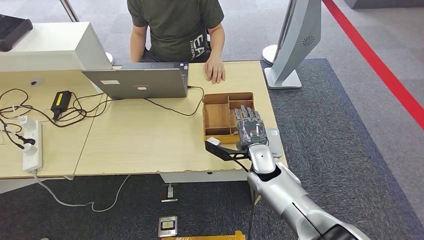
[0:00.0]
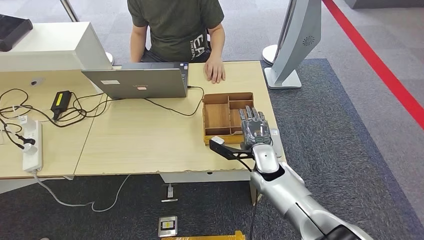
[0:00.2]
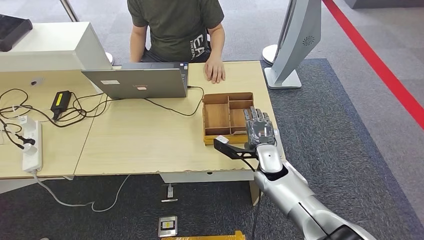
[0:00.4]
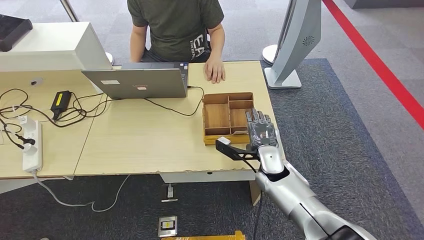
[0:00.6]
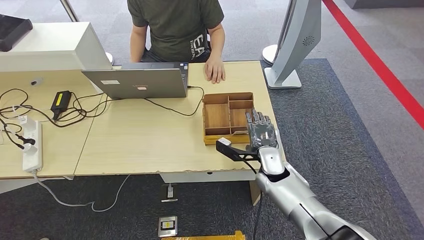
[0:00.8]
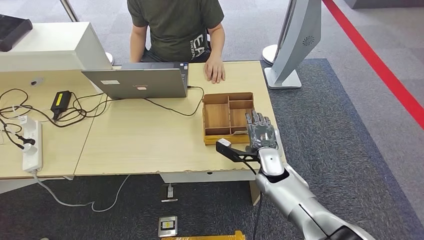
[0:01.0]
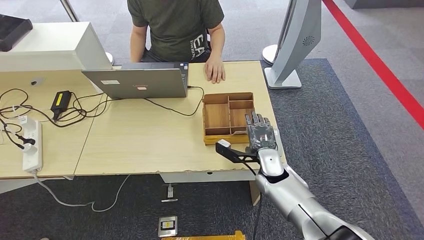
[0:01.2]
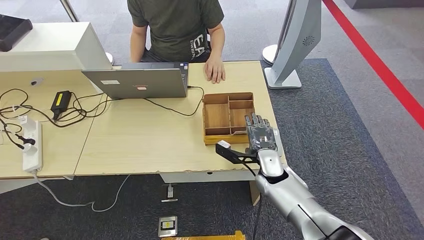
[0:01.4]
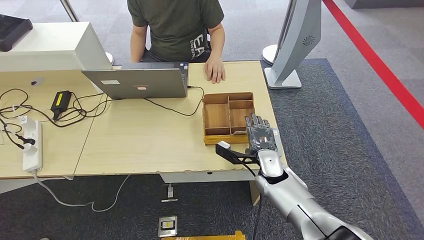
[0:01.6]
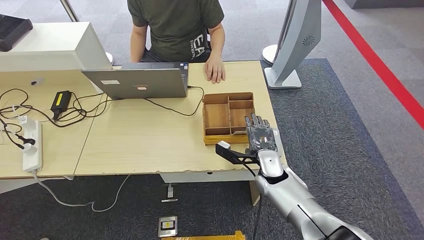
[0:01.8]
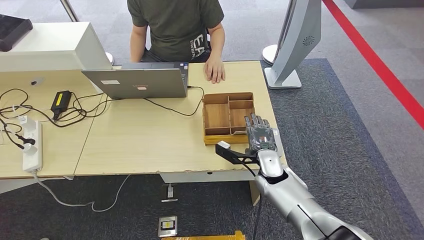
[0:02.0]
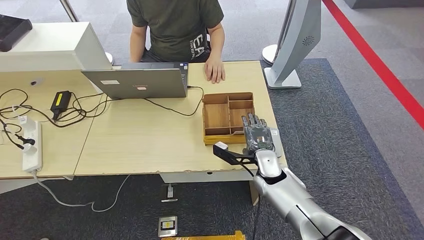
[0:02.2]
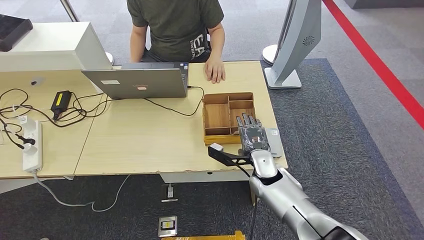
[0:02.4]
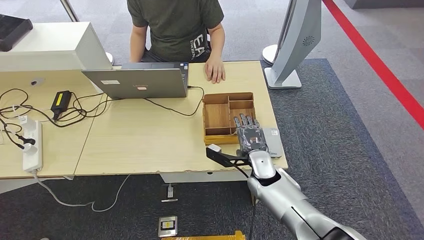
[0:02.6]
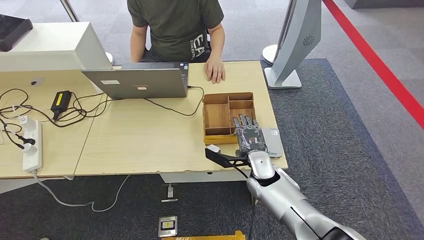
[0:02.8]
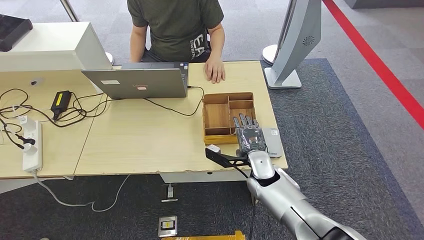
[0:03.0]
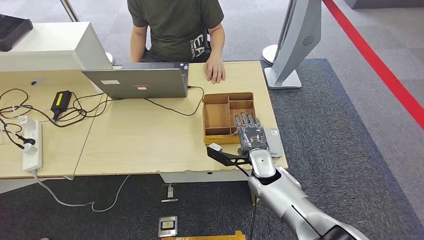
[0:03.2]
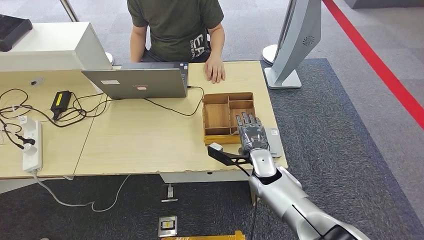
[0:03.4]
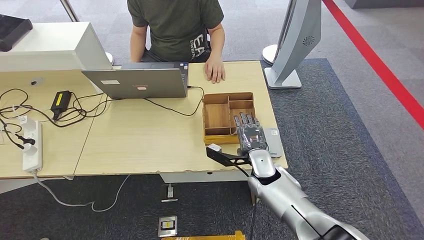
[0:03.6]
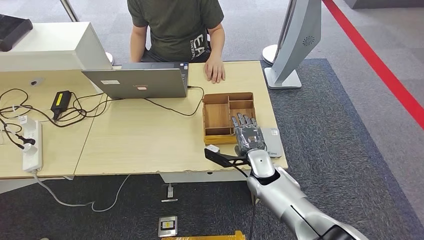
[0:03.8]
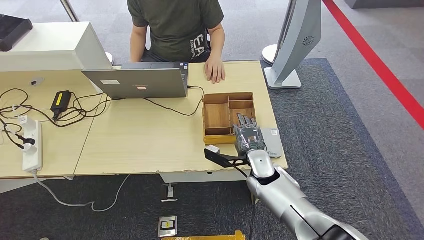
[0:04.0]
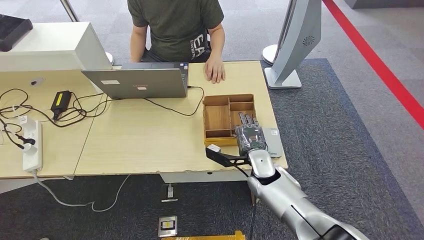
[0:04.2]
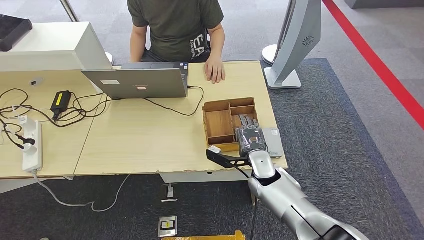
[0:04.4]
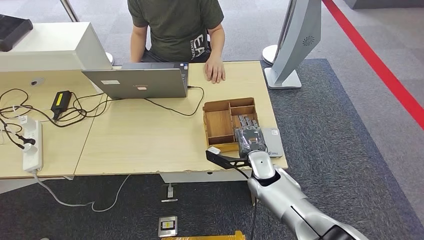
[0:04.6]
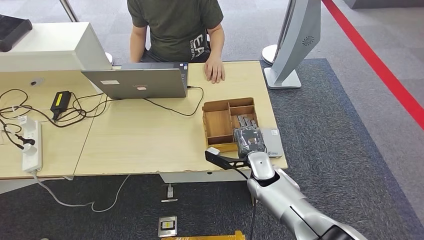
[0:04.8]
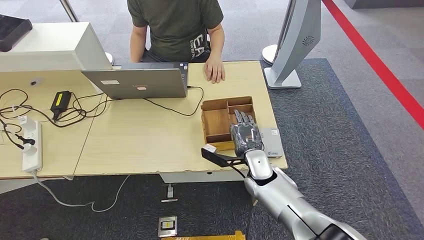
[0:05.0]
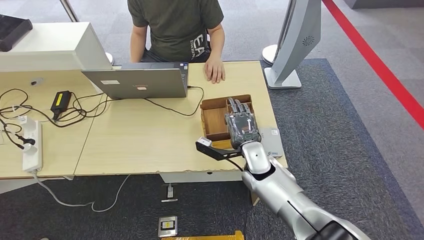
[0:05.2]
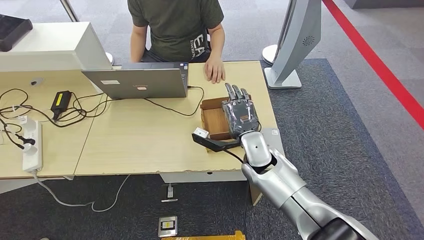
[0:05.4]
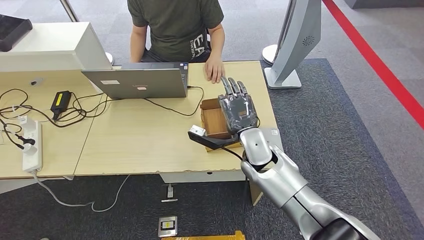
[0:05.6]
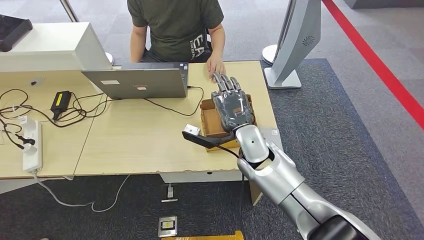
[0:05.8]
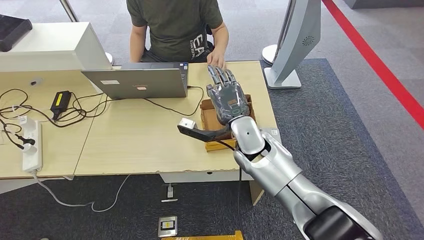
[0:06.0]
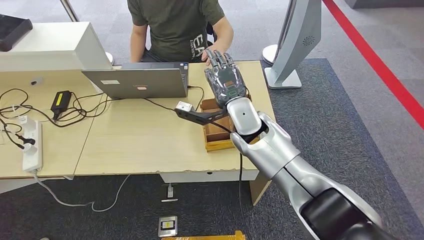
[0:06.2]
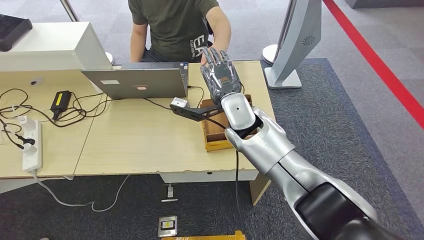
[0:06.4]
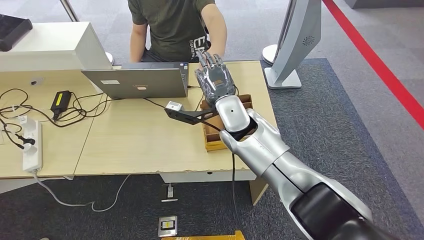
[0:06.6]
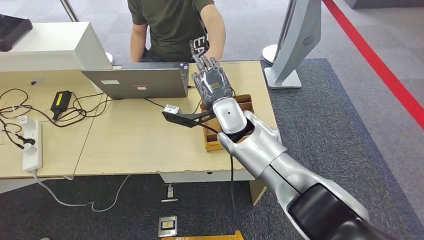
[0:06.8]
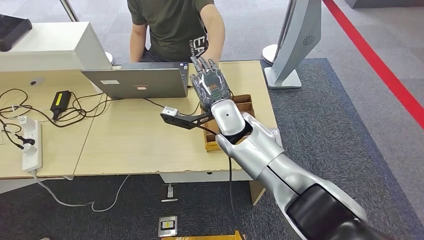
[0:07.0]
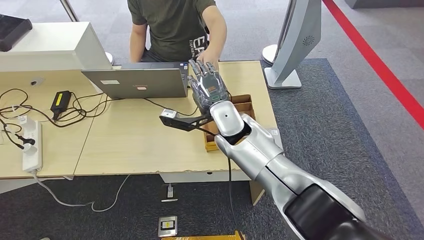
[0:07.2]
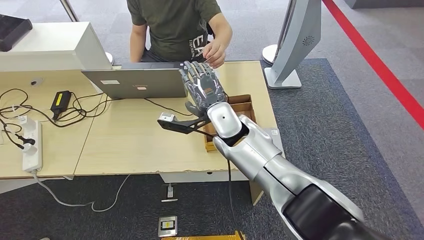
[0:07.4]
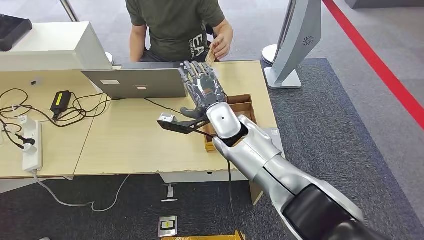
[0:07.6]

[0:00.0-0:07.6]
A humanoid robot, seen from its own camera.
Step, 0.0 to 5.0 s: Pick up the room key from the key card box.
Step, 5.2 to 7.4 s: Hand the room key to the person.
0.0 to 3.0 s: There are only small adjustments of the hands.
3.0 to 4.6 s: Both hands stay put.
4.6 to 6.0 s: The right hand shifts some 15 cm upward and to the left.
6.0 to 7.6 s: The right hand heads to the left, covering roughly 5 cm.

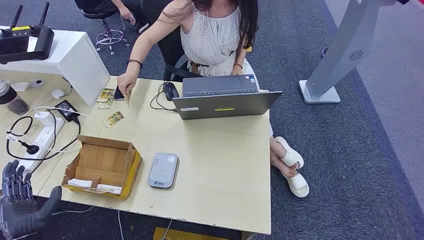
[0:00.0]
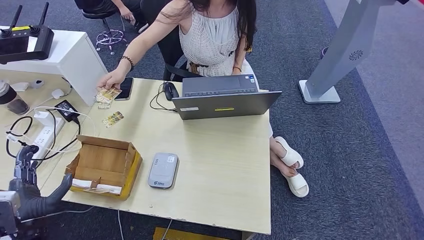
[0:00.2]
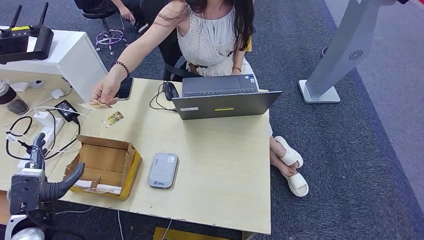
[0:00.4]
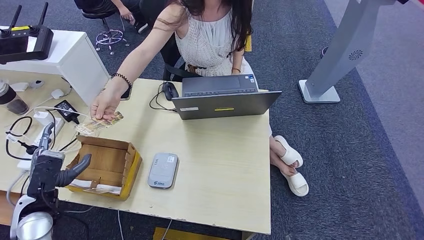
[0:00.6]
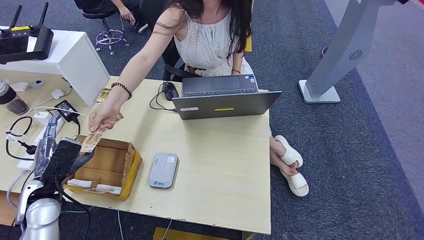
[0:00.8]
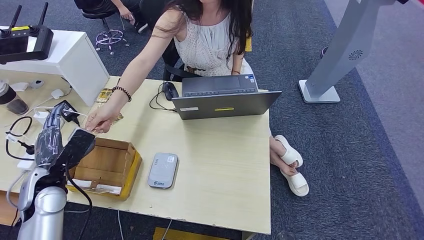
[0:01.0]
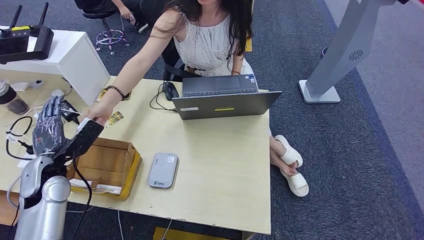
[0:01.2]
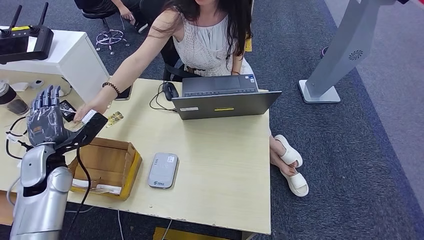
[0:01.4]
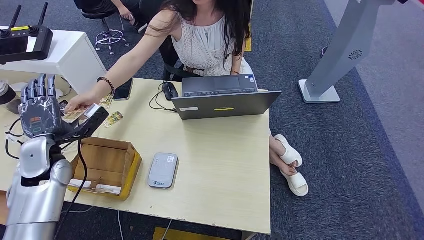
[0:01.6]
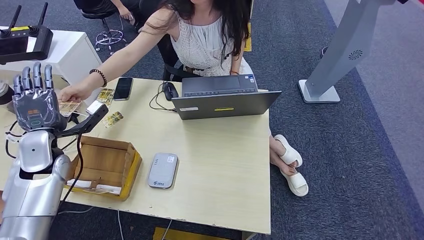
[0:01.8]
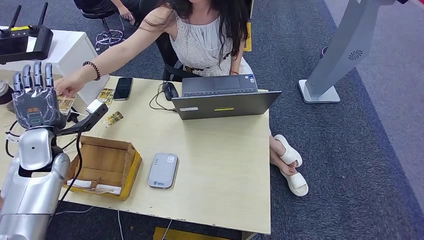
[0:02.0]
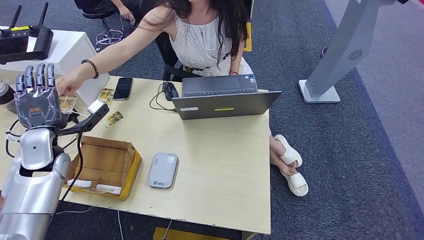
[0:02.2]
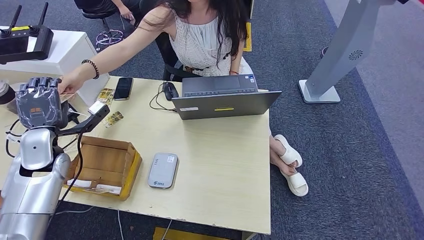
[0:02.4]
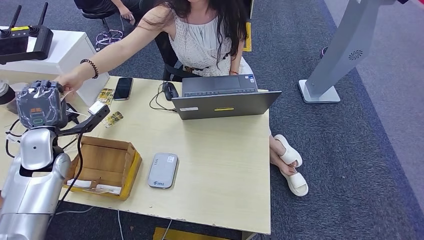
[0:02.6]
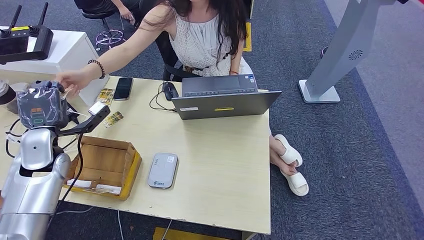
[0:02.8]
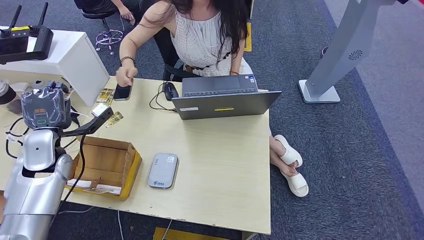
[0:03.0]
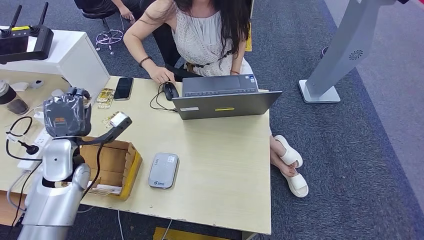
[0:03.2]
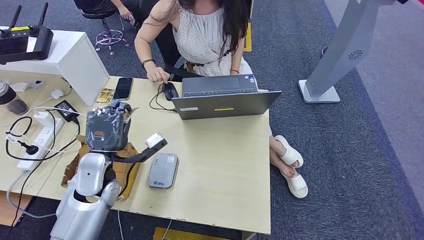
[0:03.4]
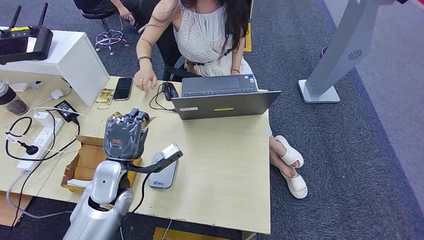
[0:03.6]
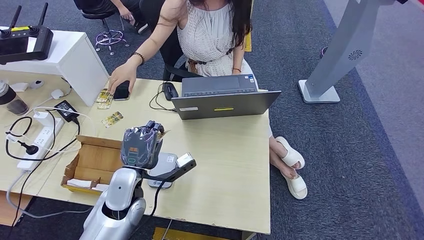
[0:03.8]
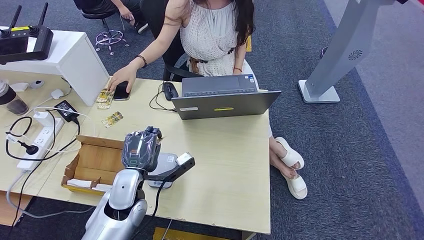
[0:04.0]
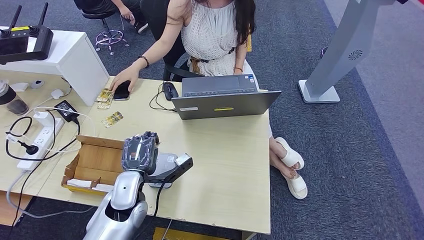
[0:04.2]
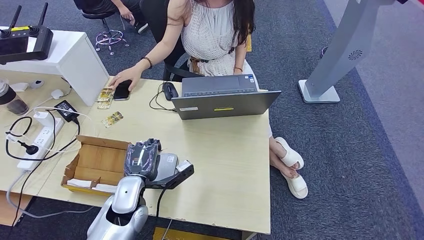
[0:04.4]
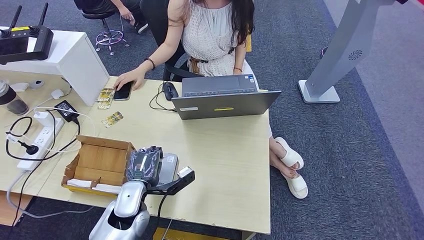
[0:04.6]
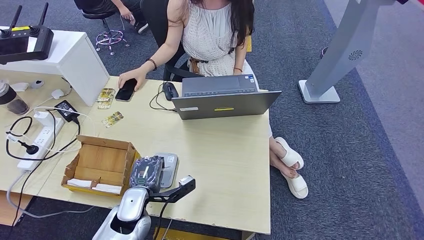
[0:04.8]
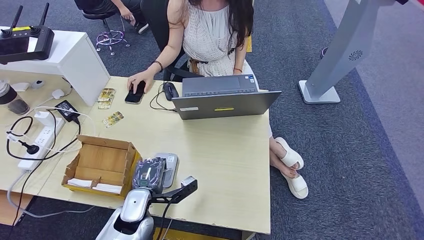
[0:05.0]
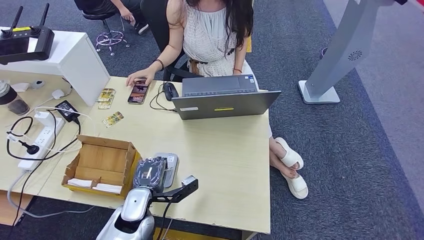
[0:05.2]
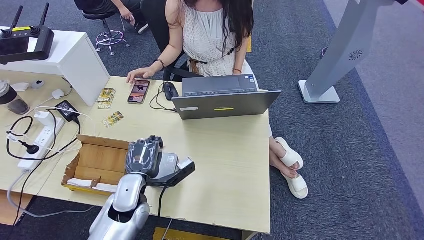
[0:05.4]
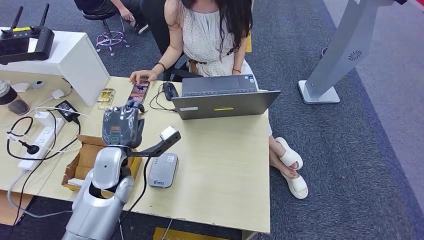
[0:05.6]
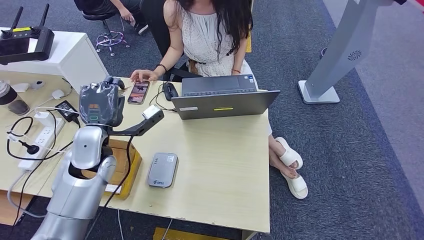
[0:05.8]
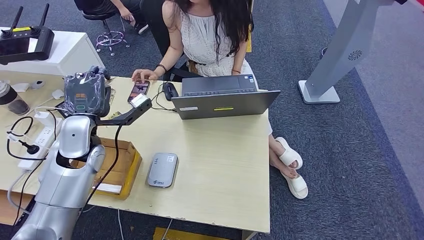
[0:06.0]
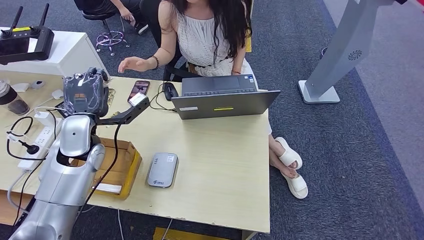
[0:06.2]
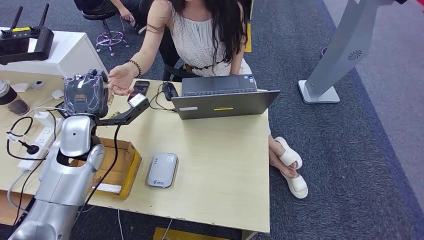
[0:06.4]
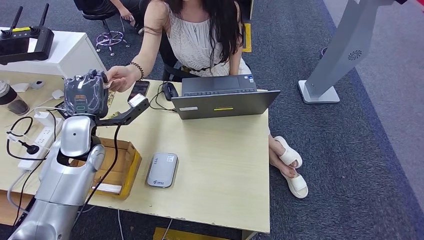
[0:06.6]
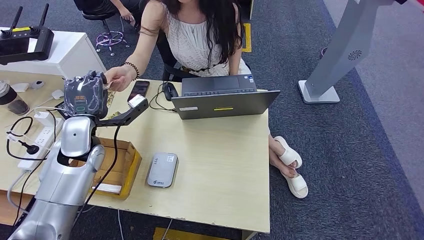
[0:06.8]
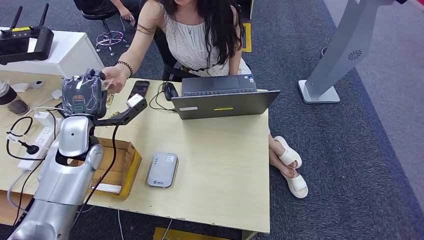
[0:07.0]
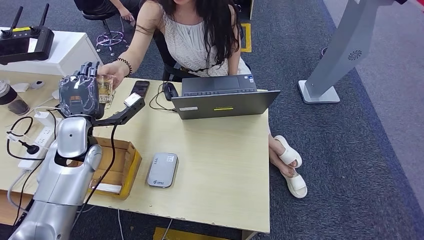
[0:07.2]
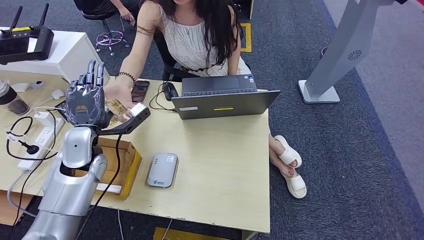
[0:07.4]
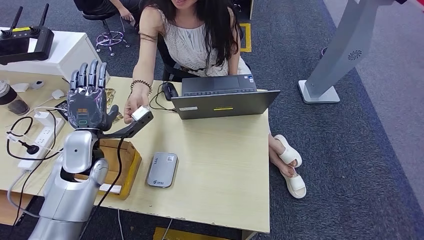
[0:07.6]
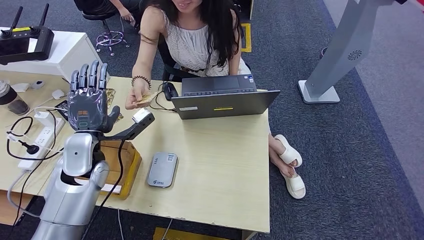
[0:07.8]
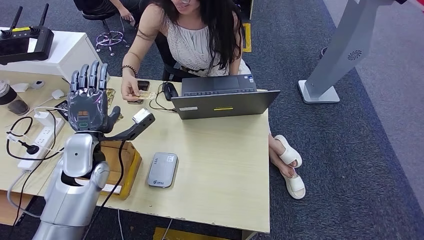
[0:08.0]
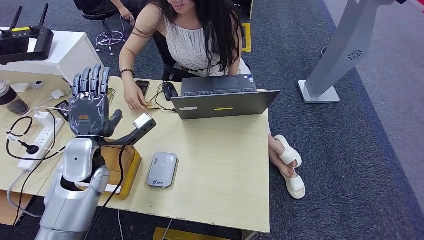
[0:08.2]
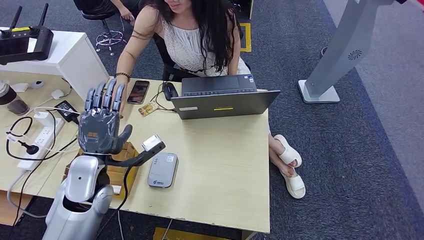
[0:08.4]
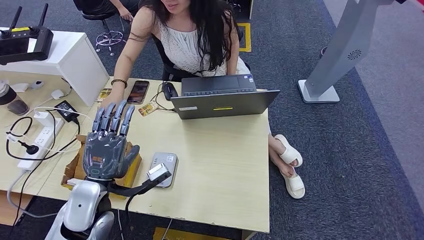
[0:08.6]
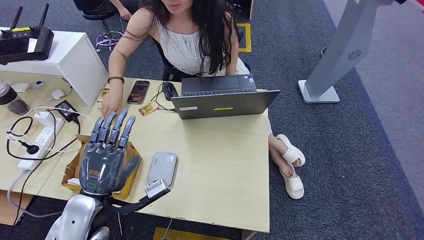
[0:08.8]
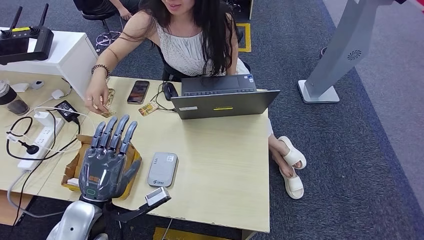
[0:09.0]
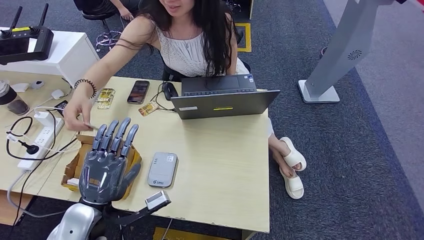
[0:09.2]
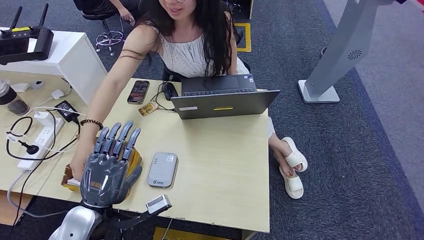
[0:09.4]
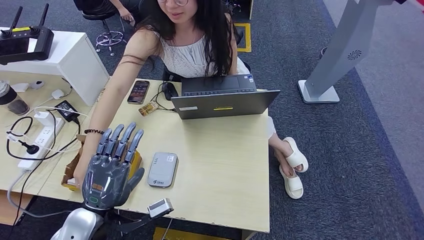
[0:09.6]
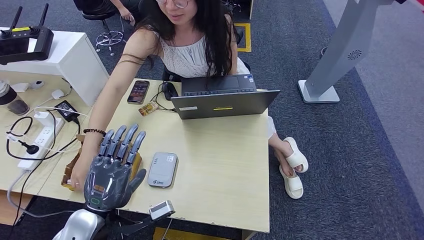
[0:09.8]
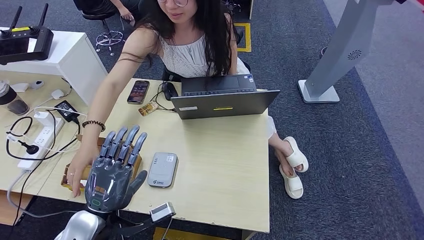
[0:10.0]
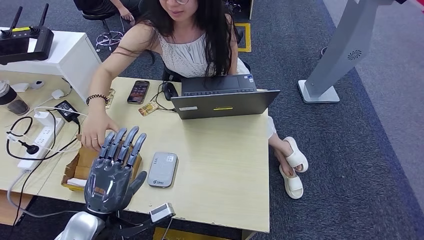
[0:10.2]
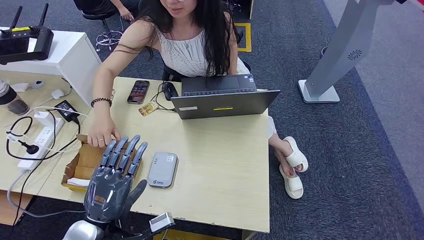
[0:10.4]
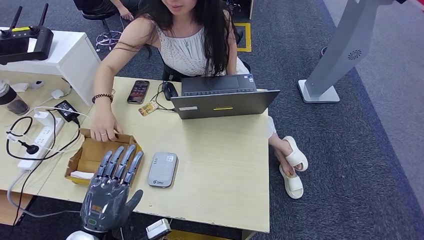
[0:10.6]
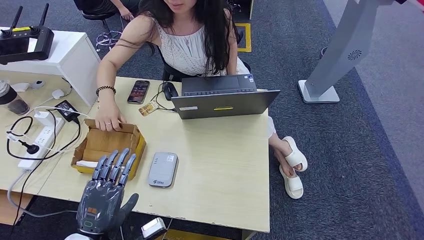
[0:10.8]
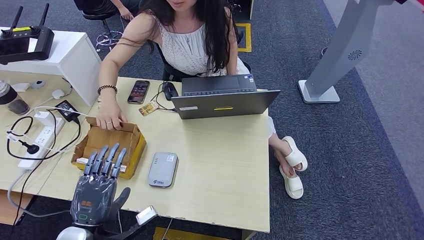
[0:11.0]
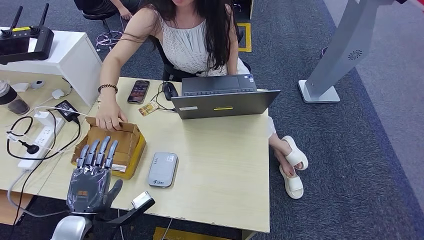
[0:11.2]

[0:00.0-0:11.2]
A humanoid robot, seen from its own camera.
Step, 0.0 to 3.2 s: Take the ID card from the person's hand.
Step, 3.4 to 6.0 s: Place the ID card on the card reader.
Step, 6.4 to 7.8 s: Hand the ID card to the person.
1.6 to 3.2 s: The hands make only small movements.
3.2 to 4.8 s: The left hand travels to the right, downward and backward by about 20 cm.
6.4 to 8.0 s: The hands stay close to where they were, moving slightly.
8.0 to 9.6 s: The left hand goes some 15 cm backward.
9.6 to 11.2 s: The left hand shifts by approximately 5 cm.
